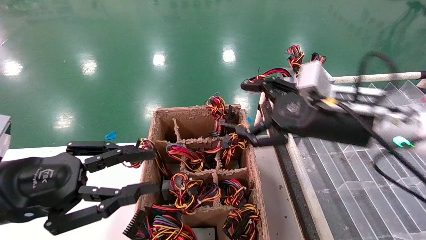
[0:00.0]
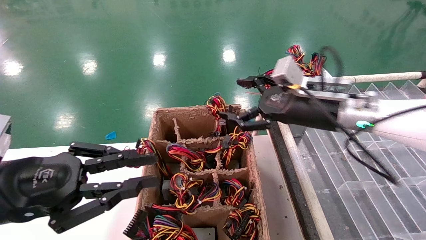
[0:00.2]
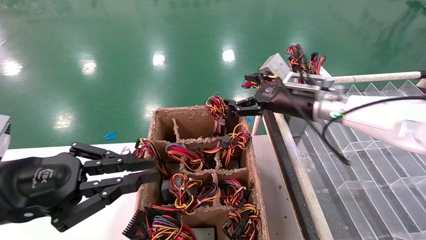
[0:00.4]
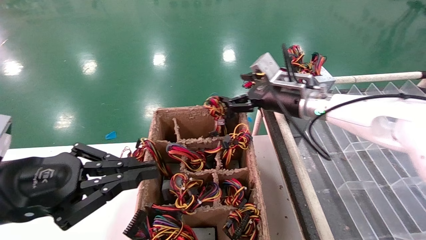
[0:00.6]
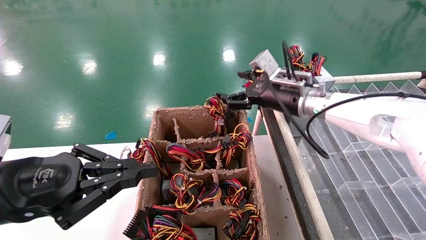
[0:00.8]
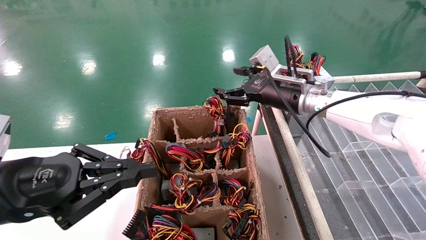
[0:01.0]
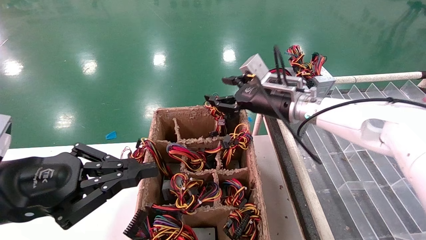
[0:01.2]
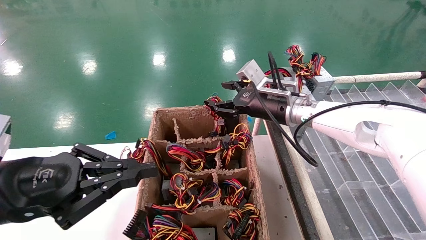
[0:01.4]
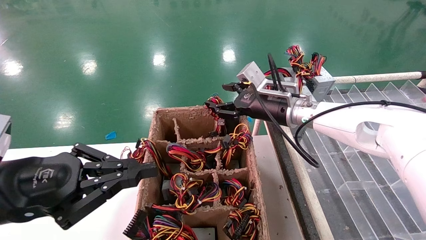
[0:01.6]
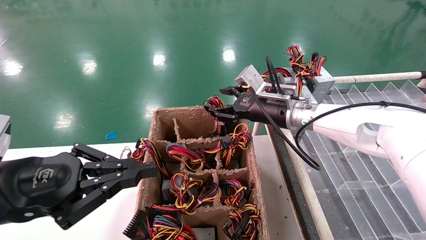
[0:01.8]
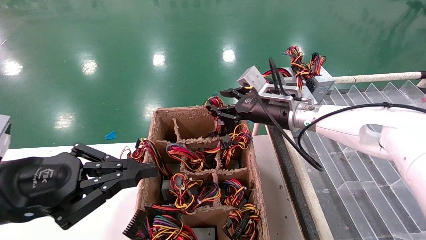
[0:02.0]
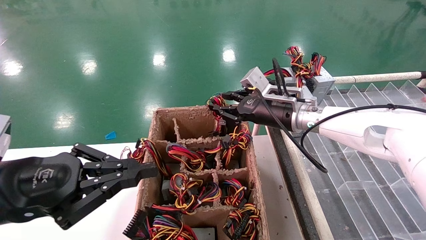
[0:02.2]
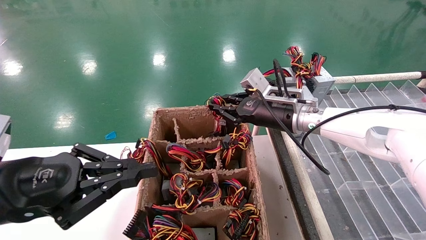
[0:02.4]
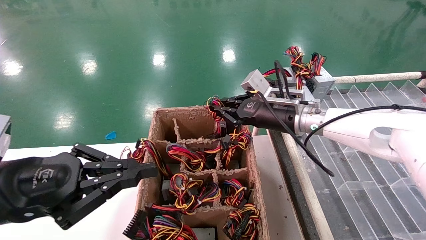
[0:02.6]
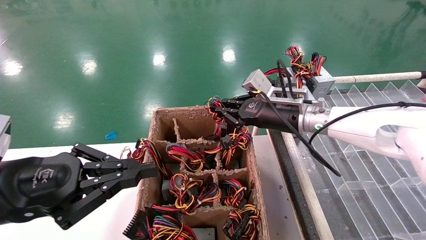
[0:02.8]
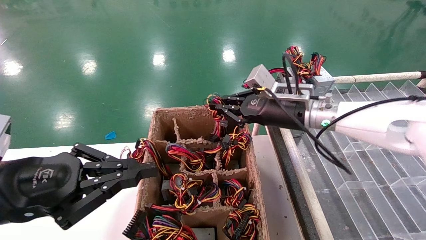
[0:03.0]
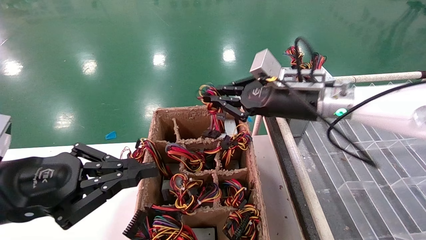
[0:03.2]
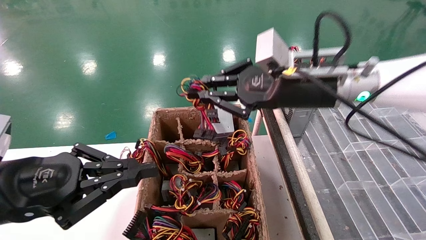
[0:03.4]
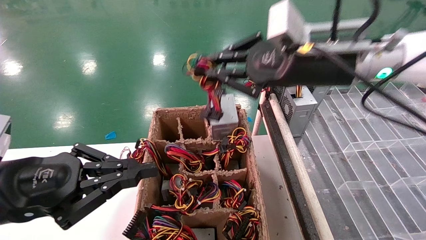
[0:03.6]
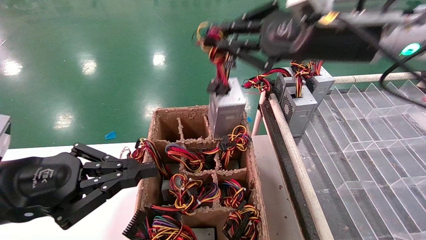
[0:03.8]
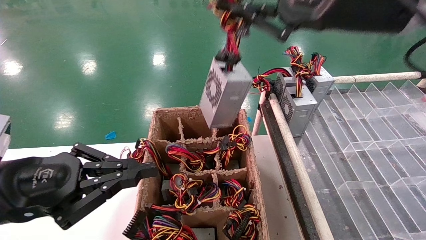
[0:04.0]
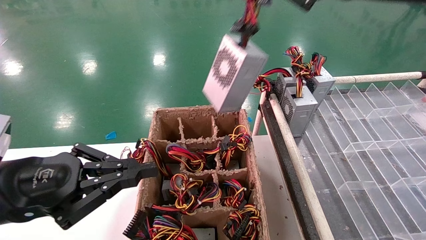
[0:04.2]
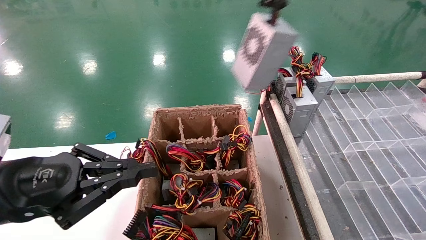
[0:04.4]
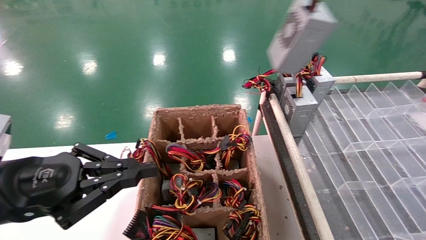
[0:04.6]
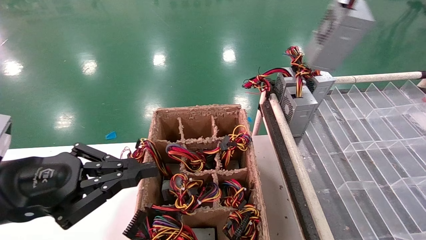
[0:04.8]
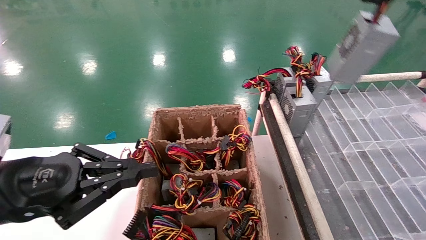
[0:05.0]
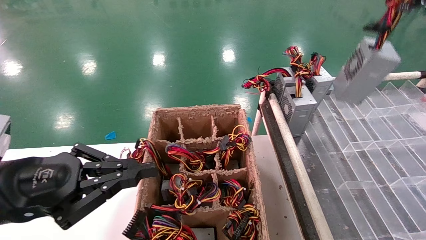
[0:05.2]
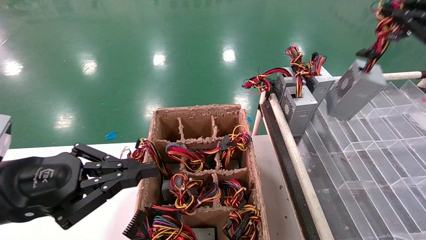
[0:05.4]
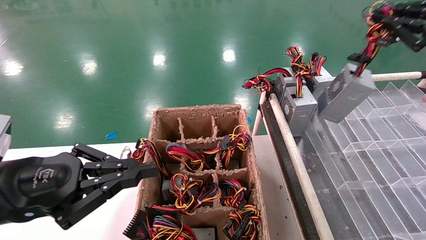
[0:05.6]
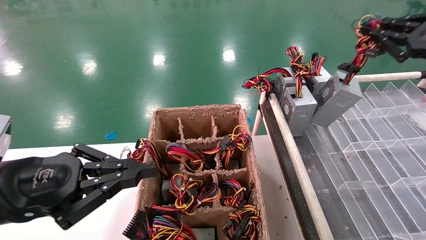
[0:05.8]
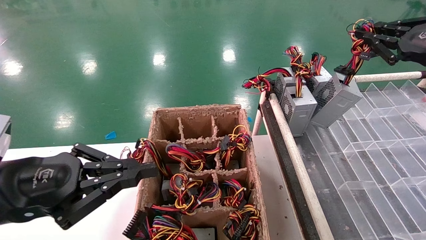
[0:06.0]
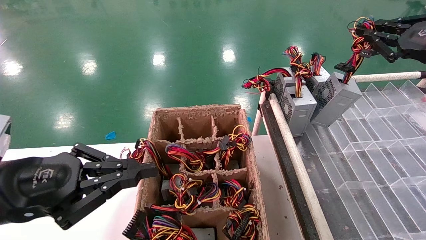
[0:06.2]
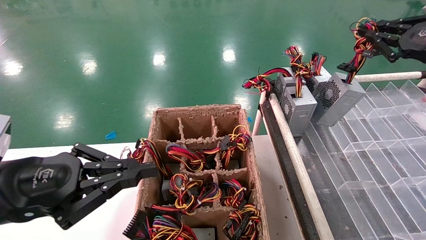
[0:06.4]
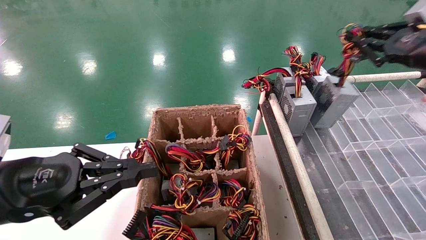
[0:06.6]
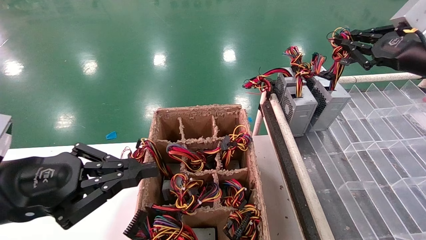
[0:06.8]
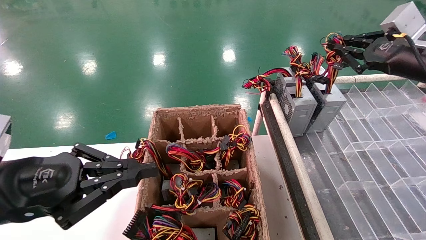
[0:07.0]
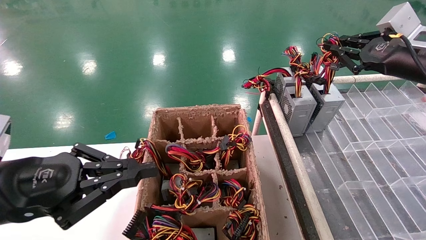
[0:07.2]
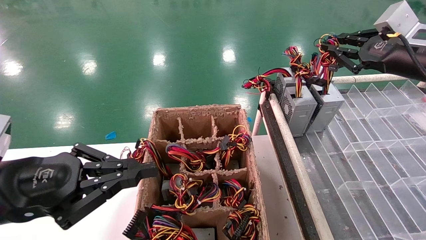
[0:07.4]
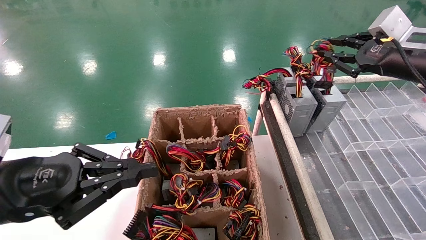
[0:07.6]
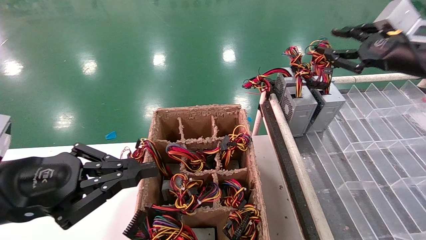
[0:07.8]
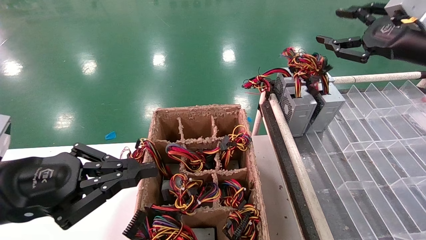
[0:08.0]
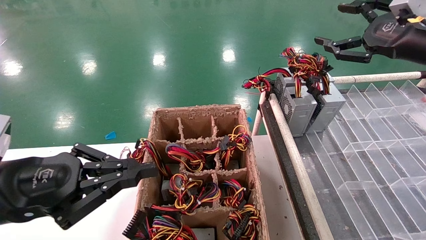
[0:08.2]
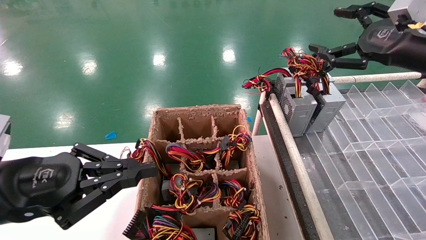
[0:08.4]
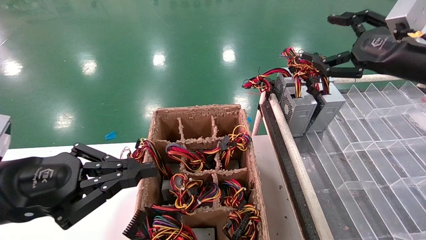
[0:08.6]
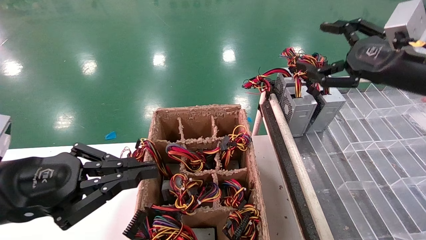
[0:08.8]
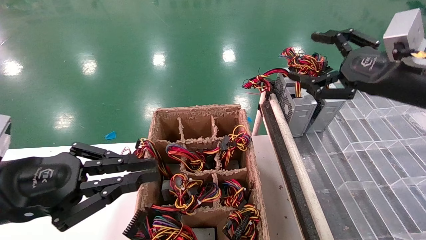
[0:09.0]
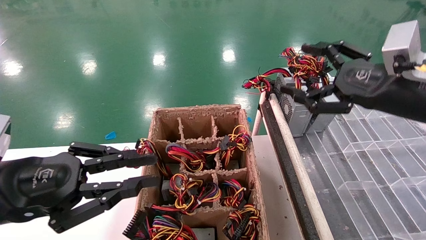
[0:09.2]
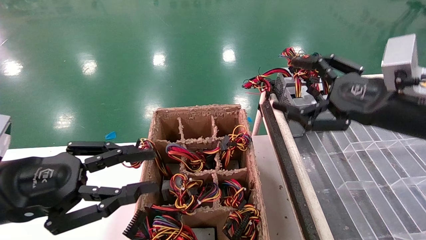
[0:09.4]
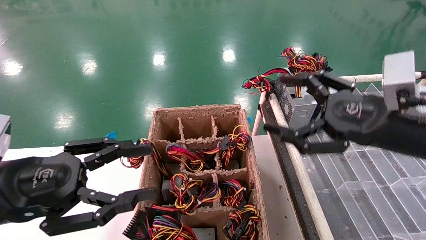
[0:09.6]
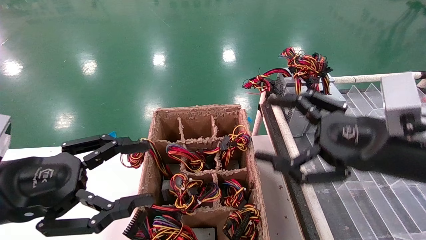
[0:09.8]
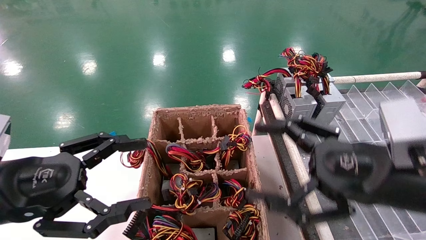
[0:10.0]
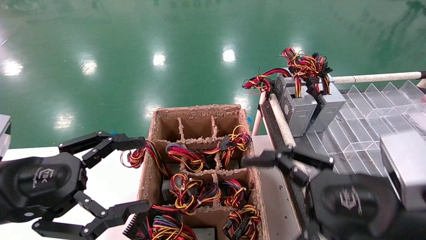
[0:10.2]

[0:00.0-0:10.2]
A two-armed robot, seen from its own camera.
Step, 0:00.0 to 0:02.6: Grab the main unit power supply from the containment box.
Step, 0:02.8 to 0:08.0: Place the main unit power supply in the designated area.
0:00.0 to 0:01.4: The right gripper heads forward and to the left, covering about 15 cm. The left gripper closes up.
0:01.4 to 0:03.0: The right gripper closes its fingers.
0:03.0 to 0:04.4: The right gripper heads upward, backward and to the right, covering approximately 30 cm.
0:04.4 to 0:05.8: The right gripper goes roughly 20 cm to the right and downward.
0:05.8 to 0:07.2: The right gripper shifts by some 5 cm.
0:07.2 to 0:08.8: The right gripper ends up about 5 cm from where it was, and opens its fingers.
0:08.8 to 0:10.2: The right gripper moves backward, downward and to the left, approximately 20 cm; the left gripper opens up.

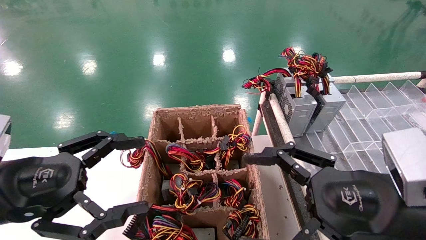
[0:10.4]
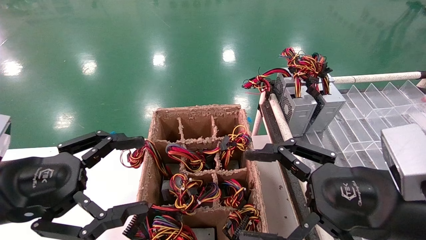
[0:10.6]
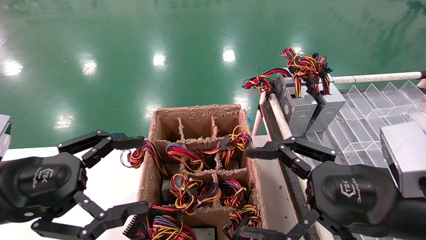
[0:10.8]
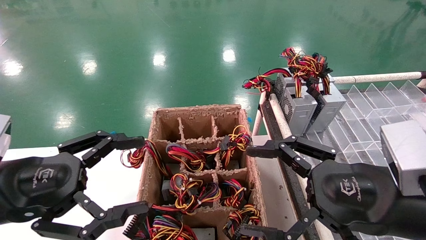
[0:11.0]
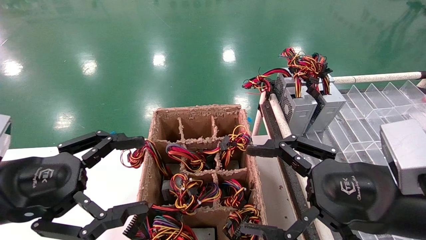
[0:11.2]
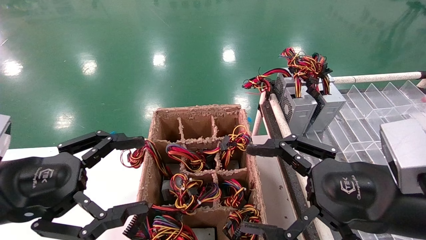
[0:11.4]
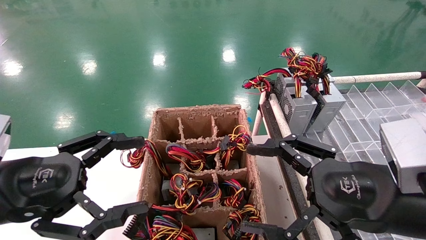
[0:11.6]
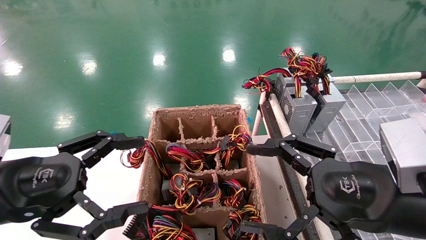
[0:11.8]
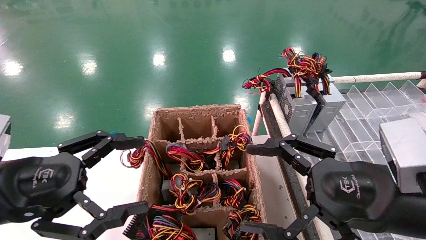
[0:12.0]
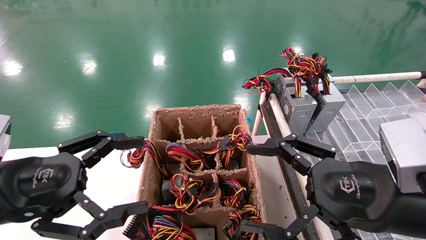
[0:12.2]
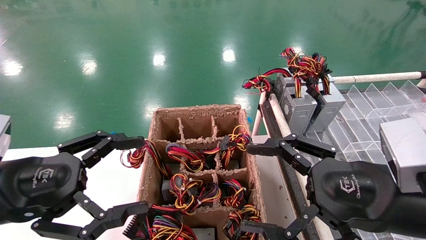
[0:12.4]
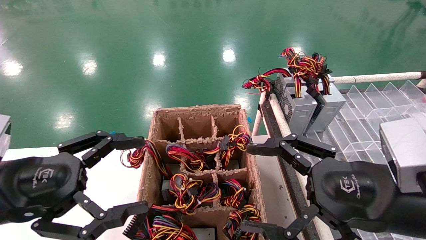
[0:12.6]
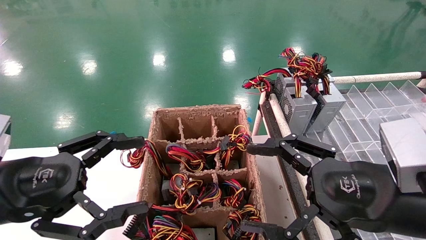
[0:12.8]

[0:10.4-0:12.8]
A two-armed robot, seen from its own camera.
0:10.4 to 0:12.8: Neither gripper changes place.
